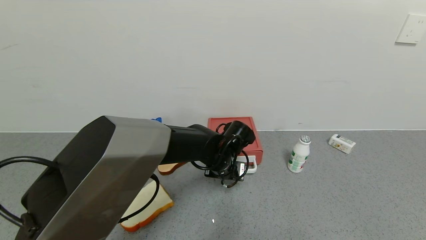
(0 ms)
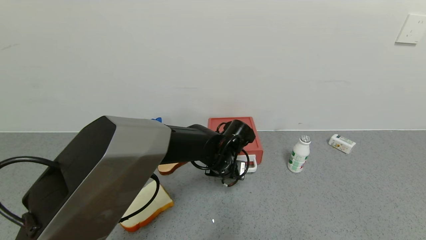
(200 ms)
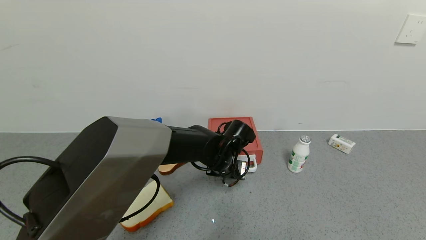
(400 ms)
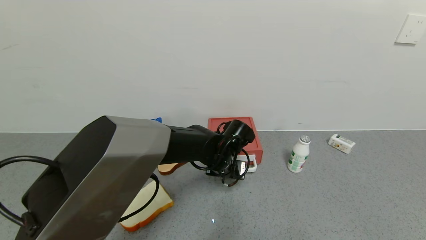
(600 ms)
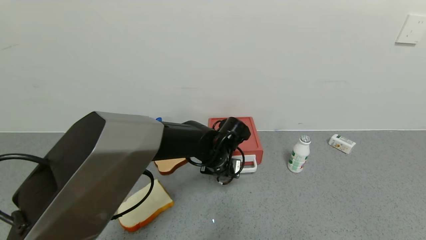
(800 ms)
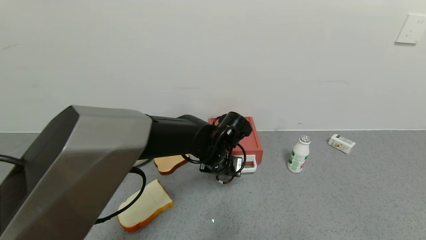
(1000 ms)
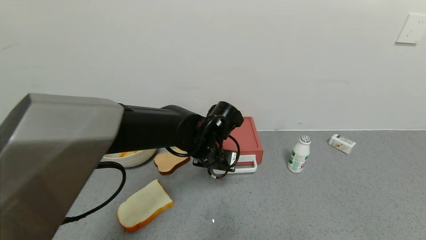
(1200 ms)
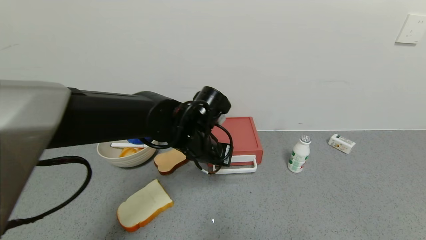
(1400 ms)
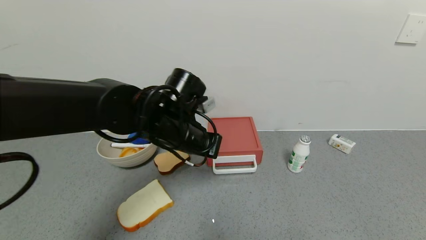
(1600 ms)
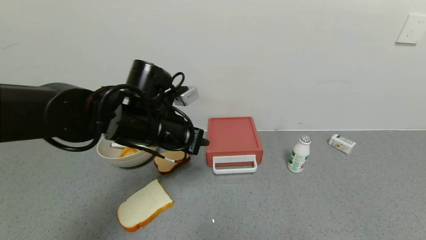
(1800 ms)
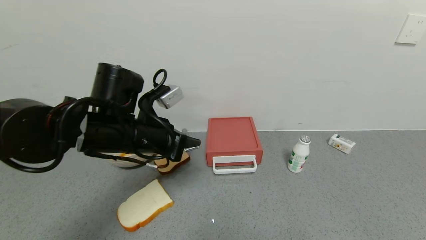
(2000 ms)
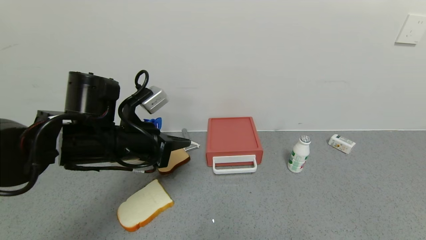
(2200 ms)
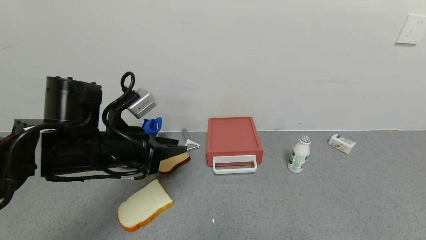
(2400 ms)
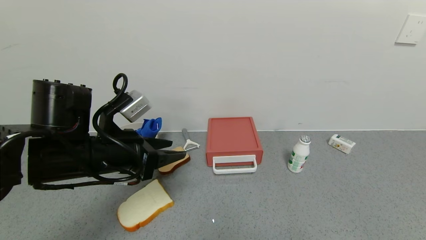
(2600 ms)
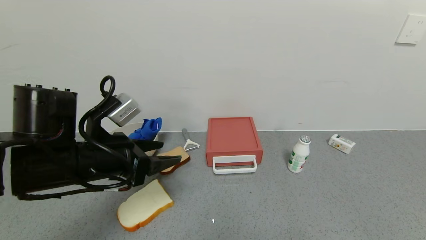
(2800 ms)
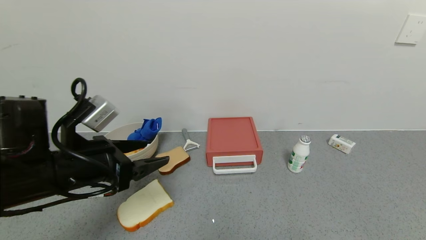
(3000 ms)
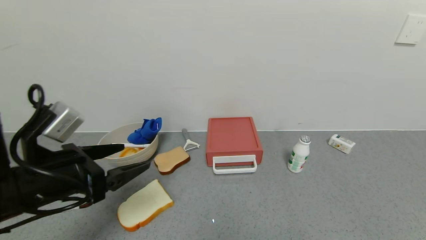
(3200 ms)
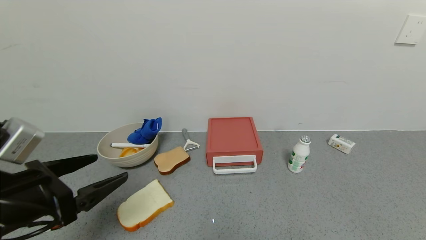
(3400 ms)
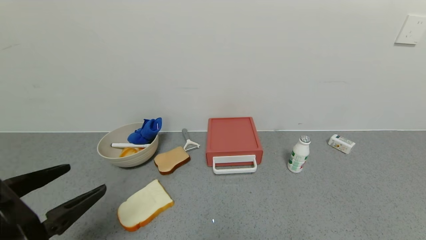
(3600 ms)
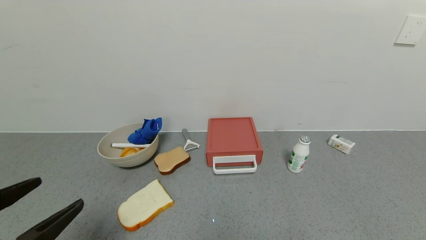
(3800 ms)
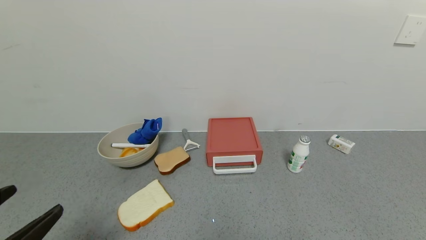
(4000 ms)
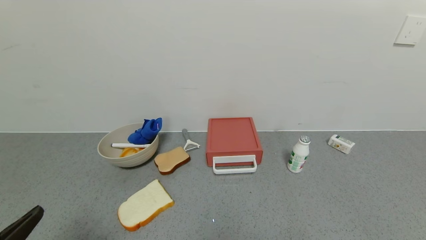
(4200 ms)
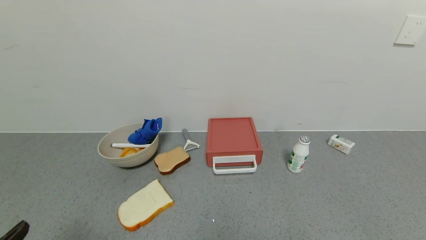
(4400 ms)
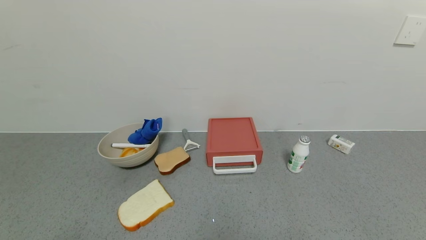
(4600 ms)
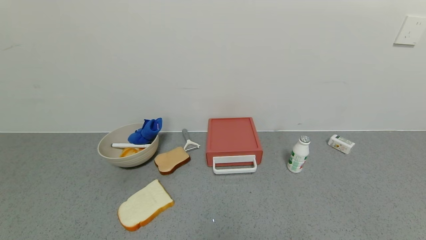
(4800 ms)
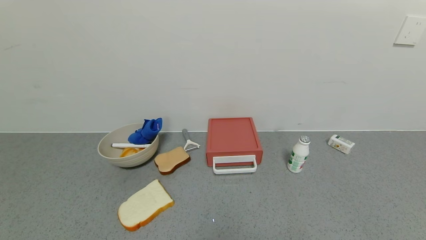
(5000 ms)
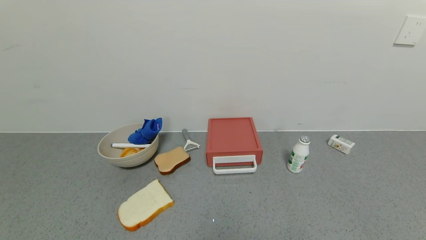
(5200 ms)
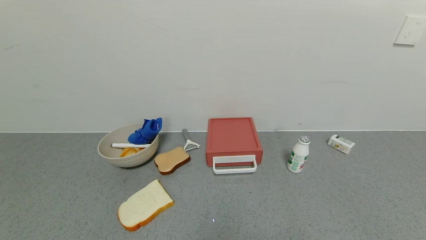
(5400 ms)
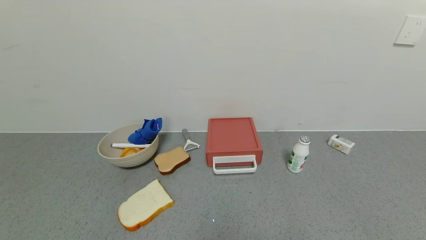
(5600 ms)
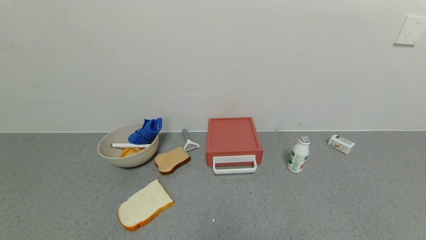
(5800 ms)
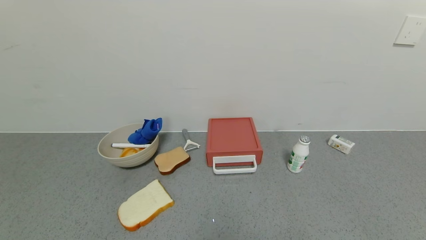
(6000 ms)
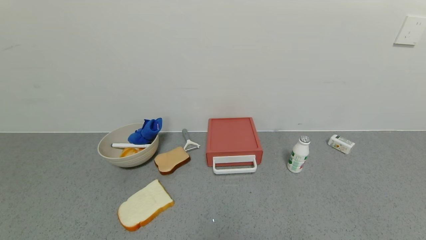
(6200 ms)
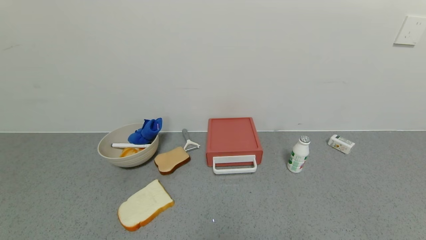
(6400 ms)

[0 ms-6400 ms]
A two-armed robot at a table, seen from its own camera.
Task of the whole recording: use the gripper to open the drawer and close the red drawer.
0 ms to 1600 ms: The left gripper shifts some 15 cm upward and to the left.
1600 ms to 3200 ms: The left gripper shifts some 20 cm to the left and backward, and opens.
3200 ms to 4800 ms: The left gripper travels backward by approximately 20 cm.
